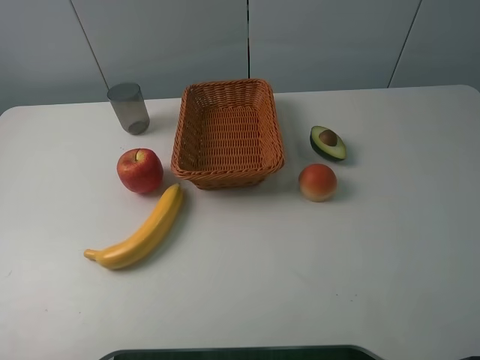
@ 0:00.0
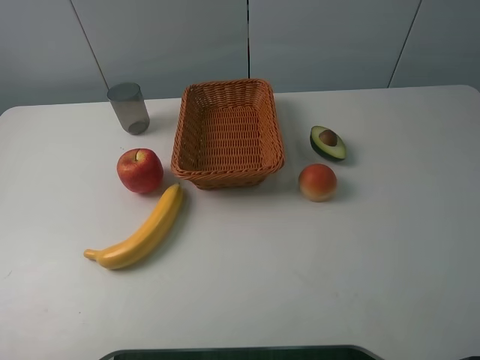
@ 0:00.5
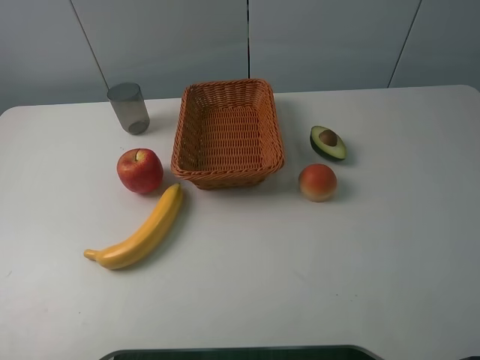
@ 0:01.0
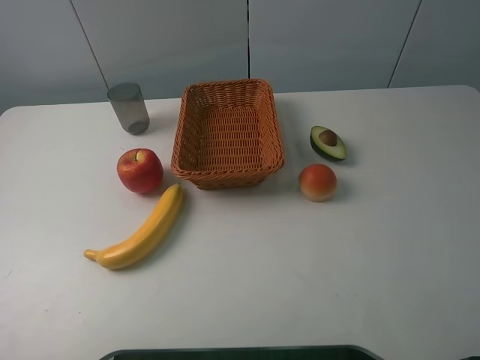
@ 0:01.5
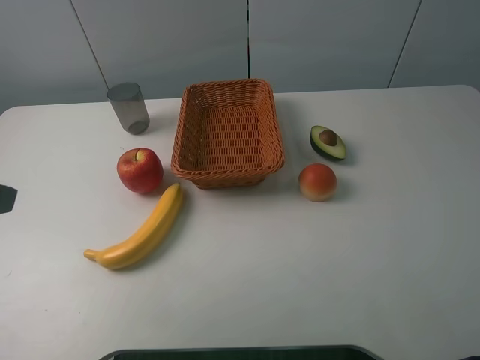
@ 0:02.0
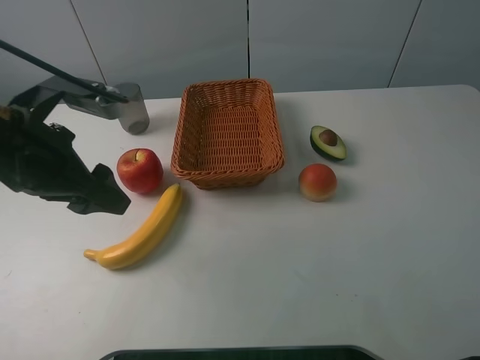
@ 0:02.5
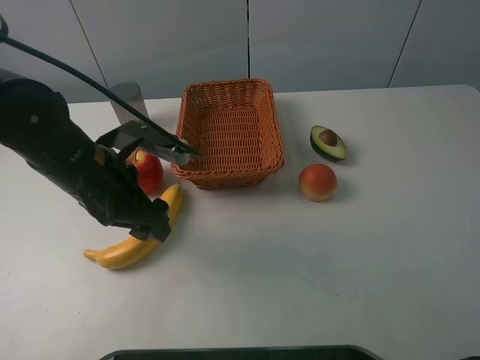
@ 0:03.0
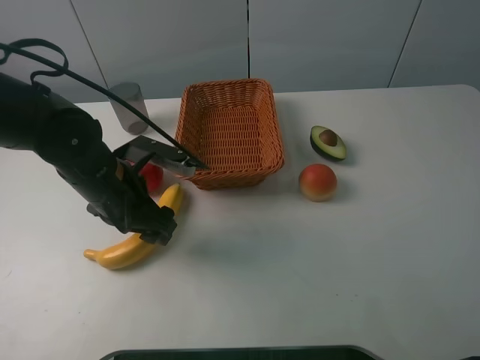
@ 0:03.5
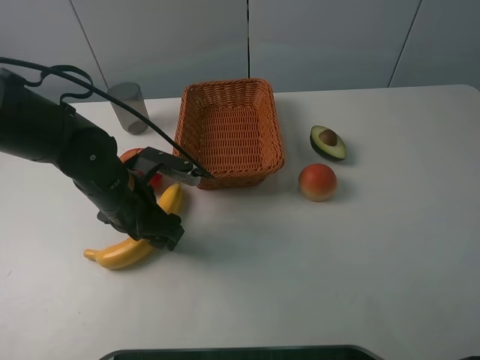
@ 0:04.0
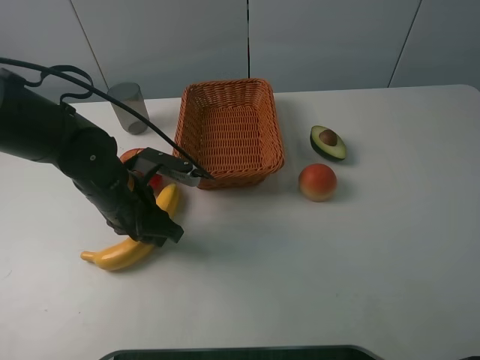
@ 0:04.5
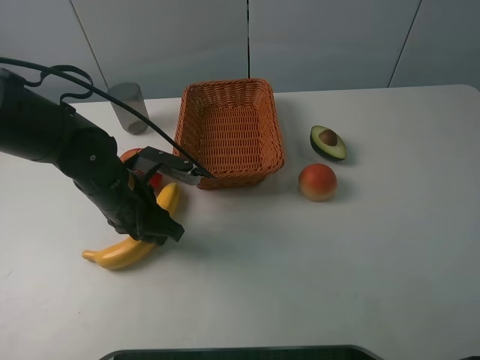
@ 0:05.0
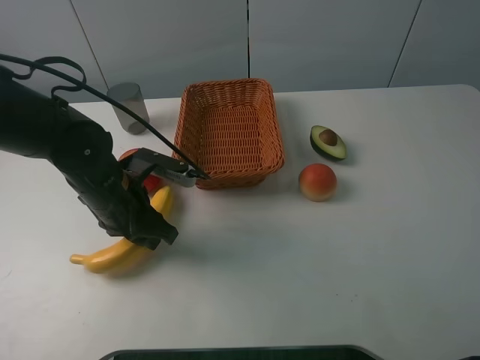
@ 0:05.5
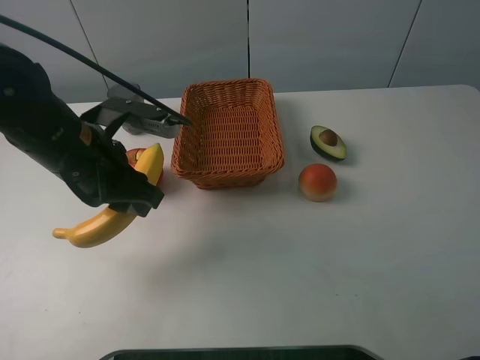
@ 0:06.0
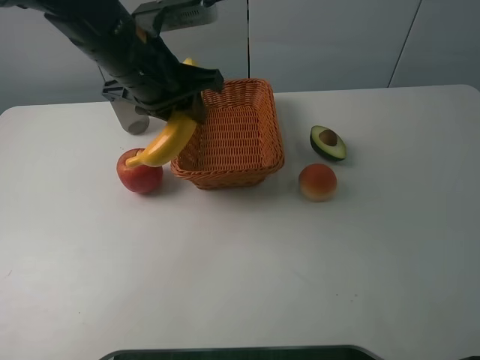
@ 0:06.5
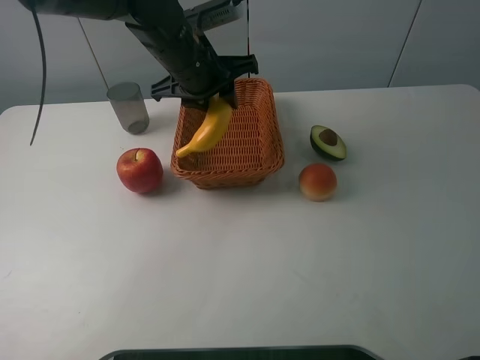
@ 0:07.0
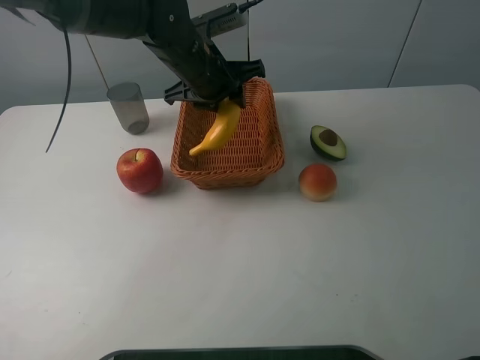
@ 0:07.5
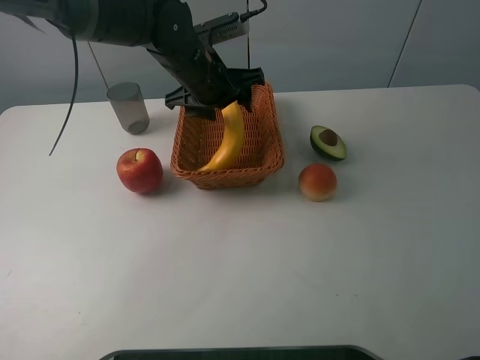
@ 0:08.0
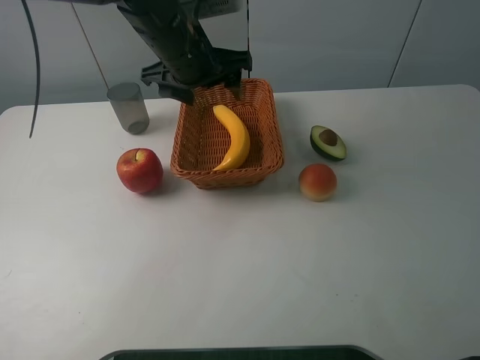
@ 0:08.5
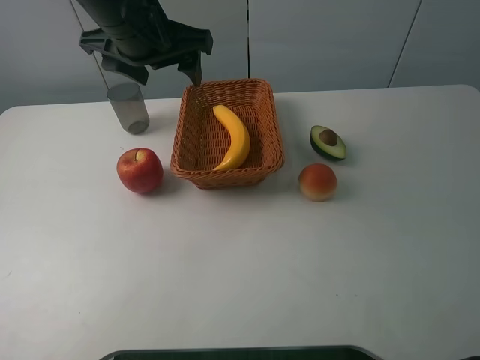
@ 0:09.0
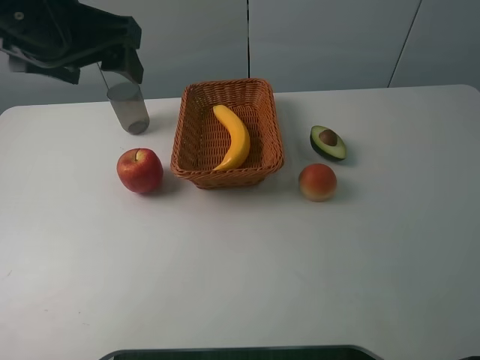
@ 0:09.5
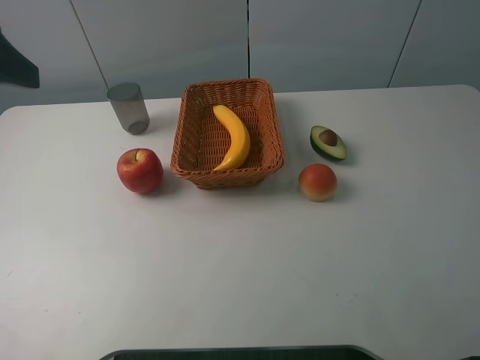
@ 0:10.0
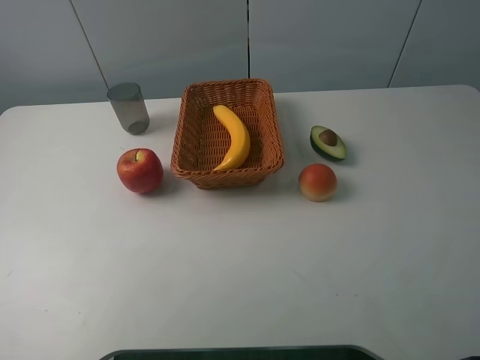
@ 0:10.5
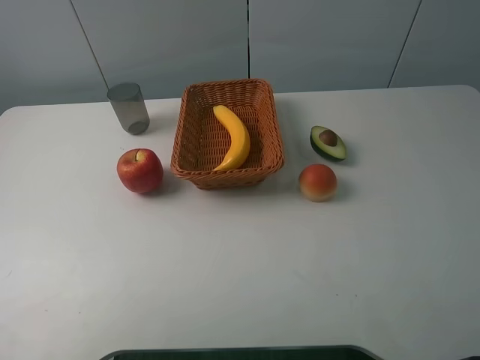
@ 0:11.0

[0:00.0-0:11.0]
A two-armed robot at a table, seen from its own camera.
0:02.0 to 0:03.5: The left gripper moves downward, forward and to the right, about 25 cm.
0:03.5 to 0:05.5: The left gripper closes.
0:05.5 to 0:07.5: The left gripper goes about 20 cm forward, to the right and upward.
0:07.5 to 0:09.0: The left gripper shifts about 15 cm upward, backward and to the left, and opens its fingers.
0:09.0 to 0:11.0: The left gripper goes about 35 cm backward and to the left.
